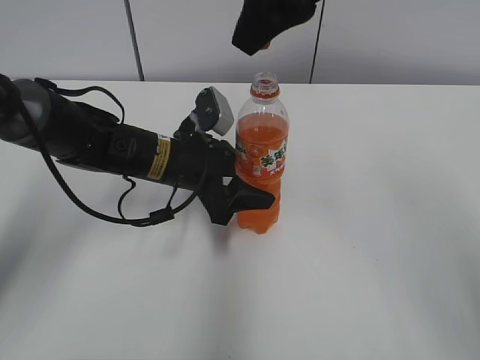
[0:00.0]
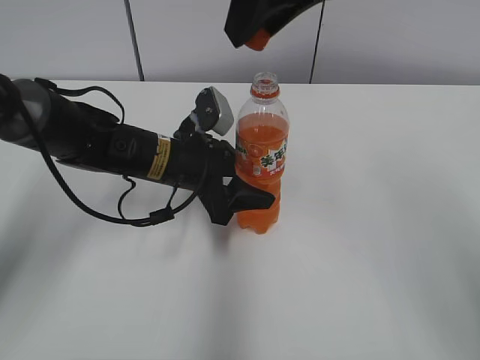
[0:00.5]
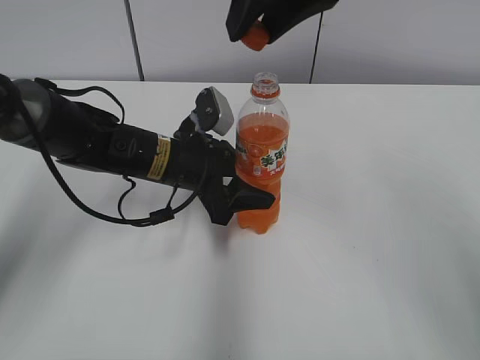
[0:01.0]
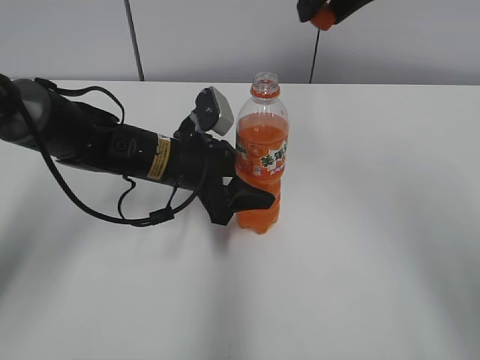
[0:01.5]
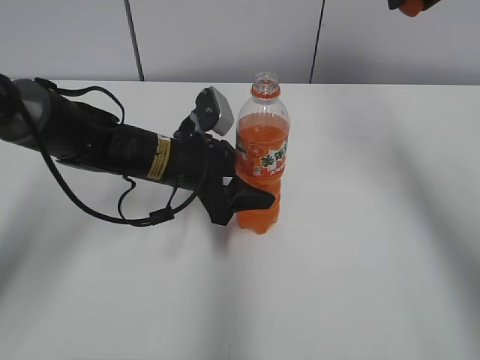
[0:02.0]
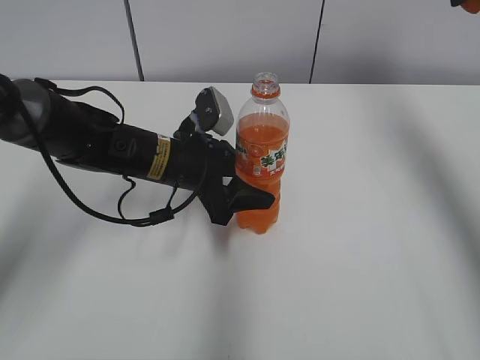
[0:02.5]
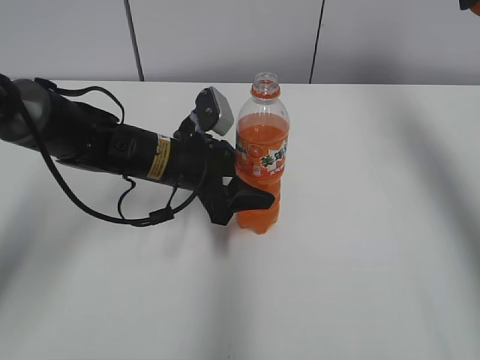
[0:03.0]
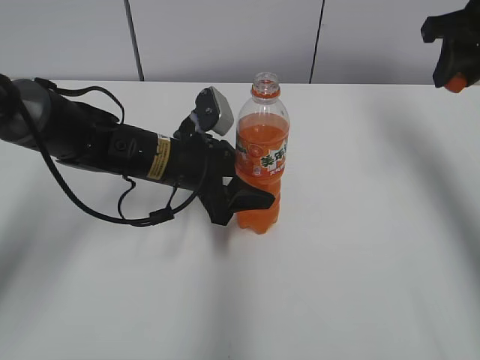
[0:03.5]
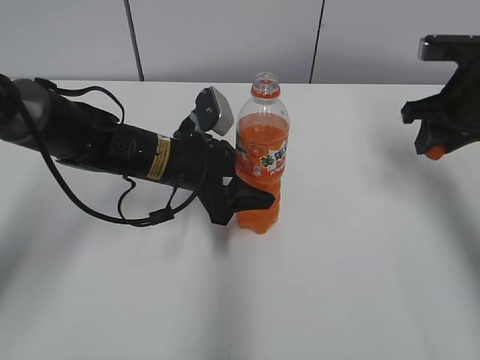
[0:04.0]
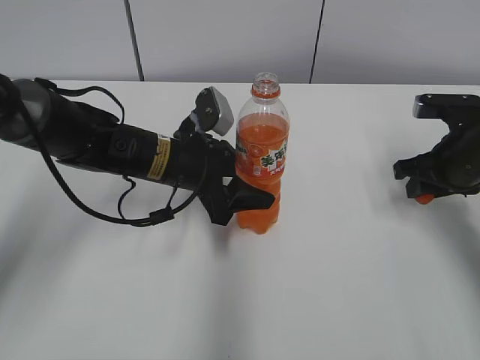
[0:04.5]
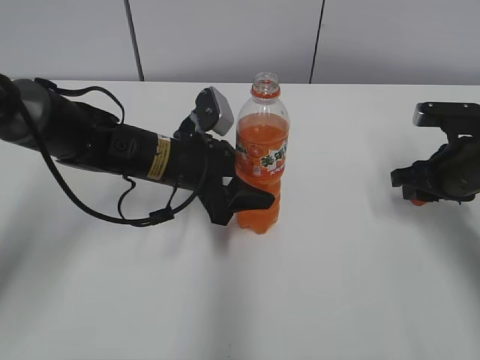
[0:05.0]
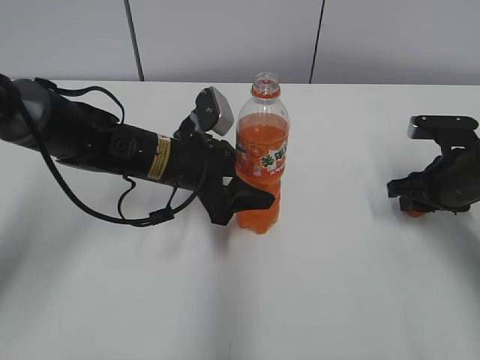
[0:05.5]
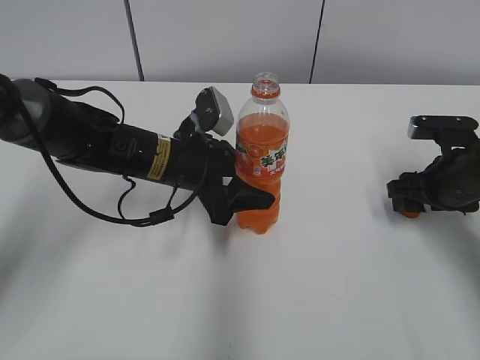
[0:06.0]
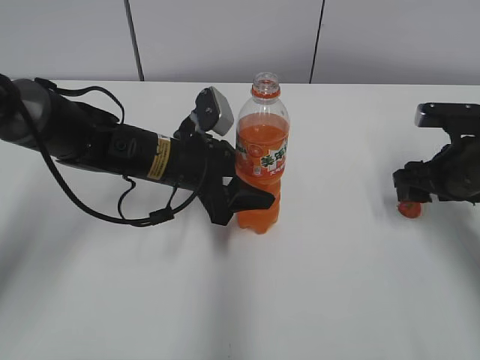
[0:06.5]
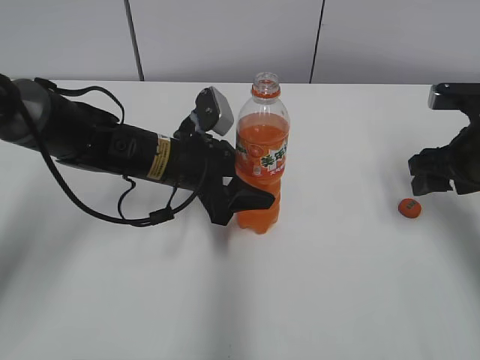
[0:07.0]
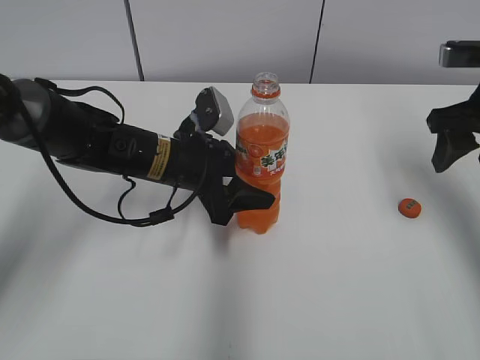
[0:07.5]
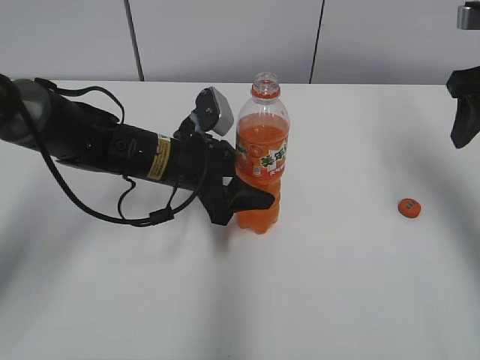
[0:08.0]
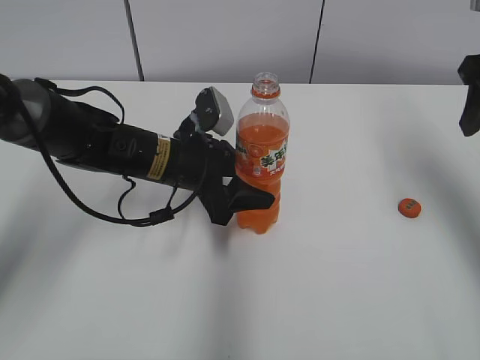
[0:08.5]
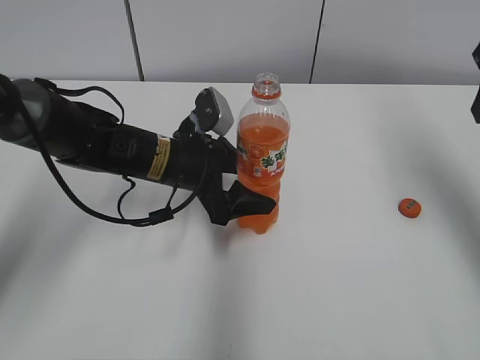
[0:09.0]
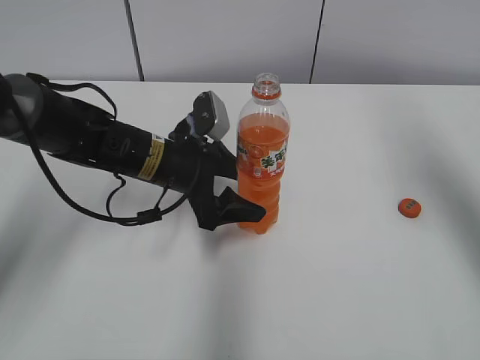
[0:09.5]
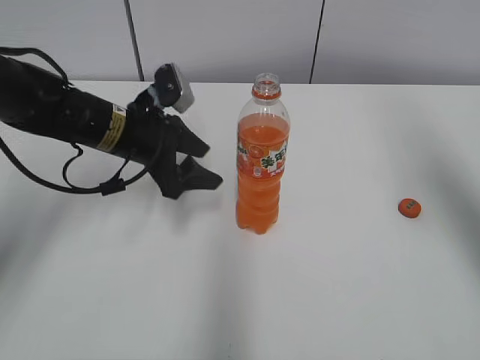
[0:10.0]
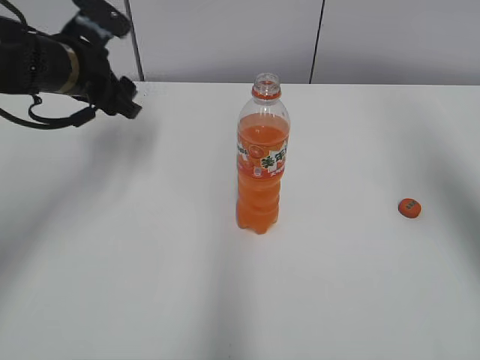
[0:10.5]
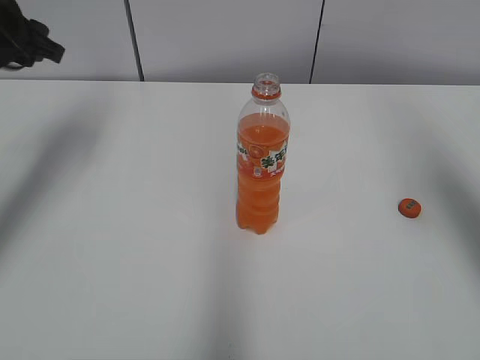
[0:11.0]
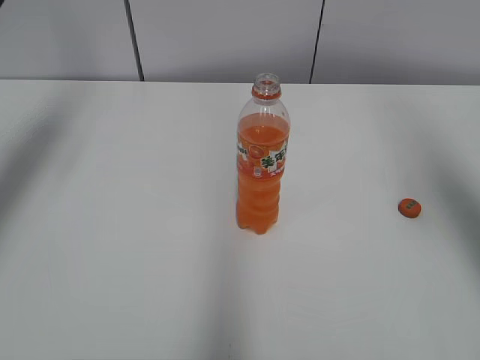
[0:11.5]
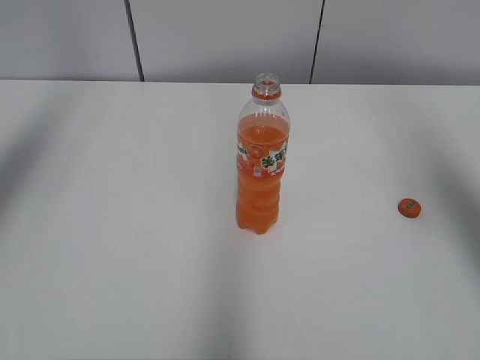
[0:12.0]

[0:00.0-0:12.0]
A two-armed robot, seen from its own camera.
Step, 0:00.0 to 0:05.5: Place the bottle cap on the right.
0:00.0 to 0:02.0: The right gripper moves to the right and forward, roughly 15 cm.
0:02.0 to 0:04.0: The right gripper goes roughly 20 cm downward and to the right.
0:04.0 to 0:06.0: The right gripper heads downward, covering roughly 10 cm, and opens.
0:06.0 to 0:08.0: The right gripper is displaced upward by roughly 15 cm.
0:08.0 to 0:10.0: The right gripper moves upward and backward, some 10 cm, while the left gripper travels to the left by some 5 cm, and opens.
0:10.0 to 0:12.0: The left gripper is displaced upward and to the left by approximately 35 cm.

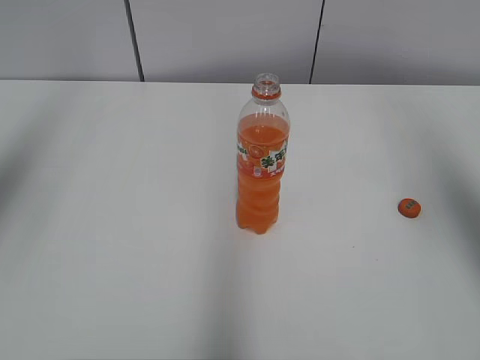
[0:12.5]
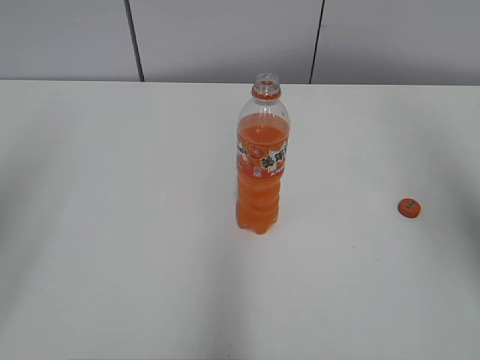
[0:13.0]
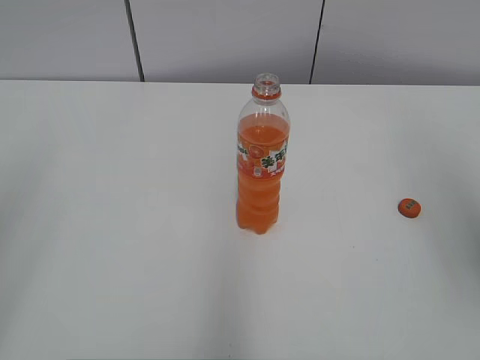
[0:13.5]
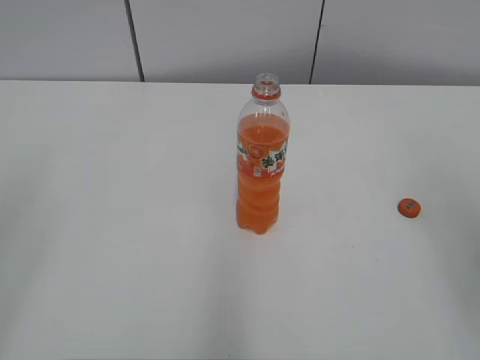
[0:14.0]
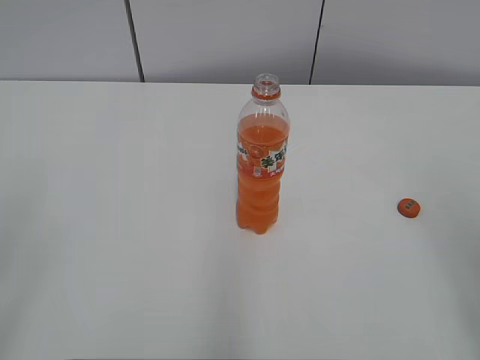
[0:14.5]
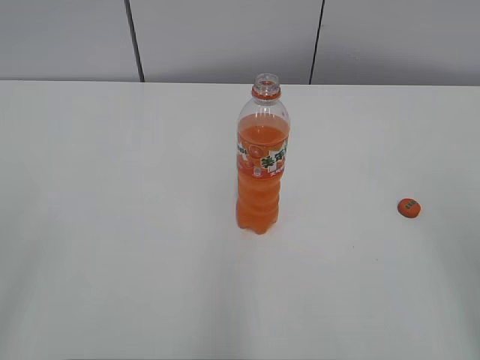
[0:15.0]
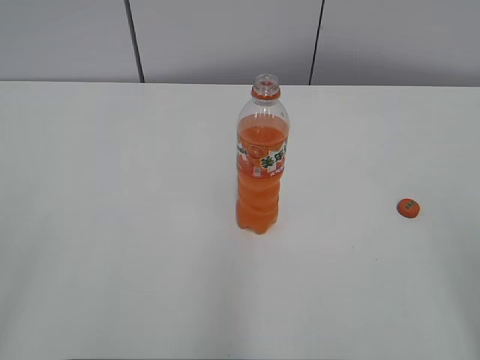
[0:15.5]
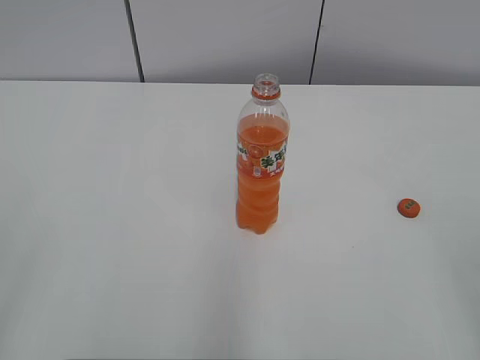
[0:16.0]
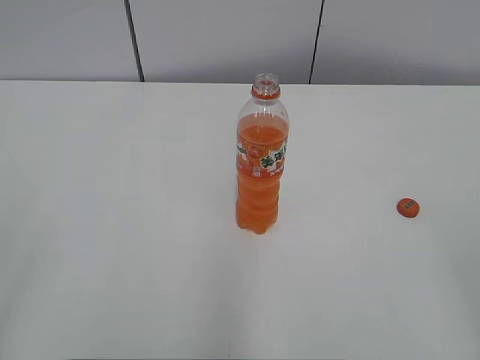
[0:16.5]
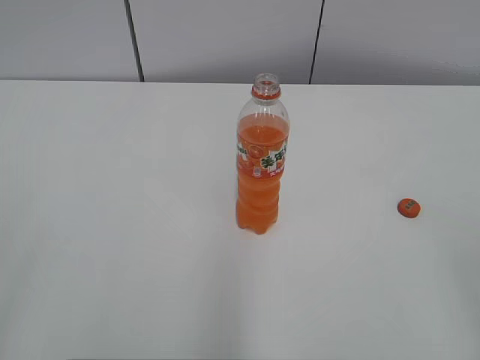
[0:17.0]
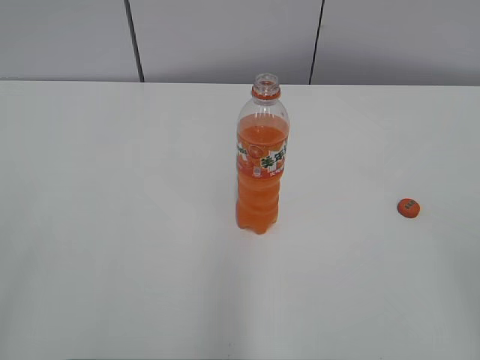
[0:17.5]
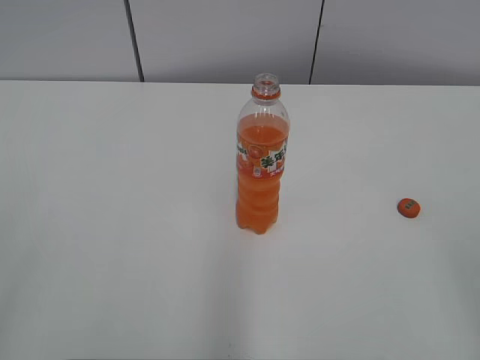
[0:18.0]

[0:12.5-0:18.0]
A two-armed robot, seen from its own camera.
0:12.5 to 0:14.5: The two grippers go some 20 cm backward and downward.
0:16.0 to 0:18.0: The two grippers keep their place.
